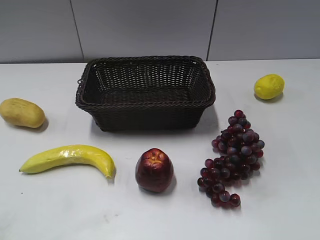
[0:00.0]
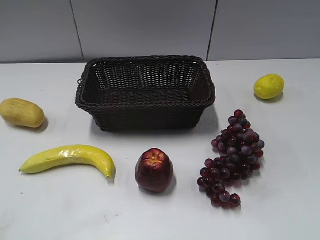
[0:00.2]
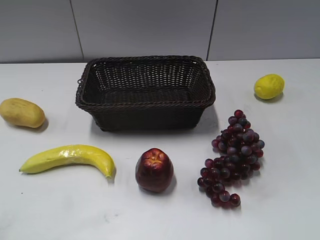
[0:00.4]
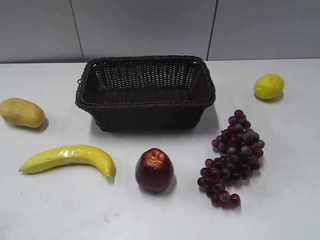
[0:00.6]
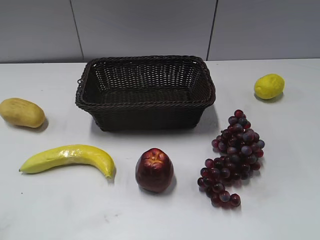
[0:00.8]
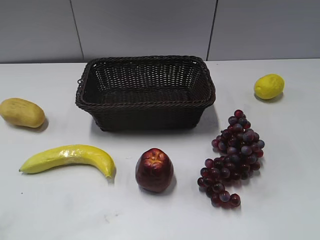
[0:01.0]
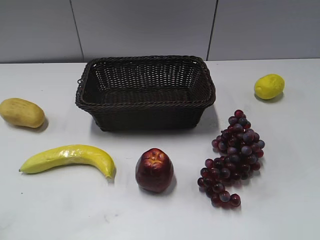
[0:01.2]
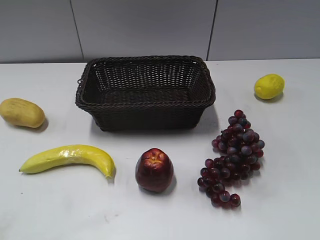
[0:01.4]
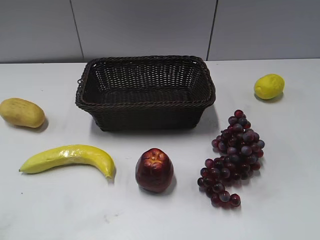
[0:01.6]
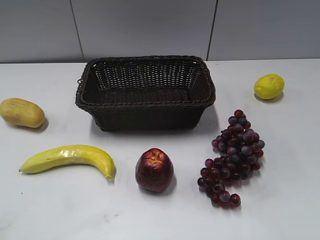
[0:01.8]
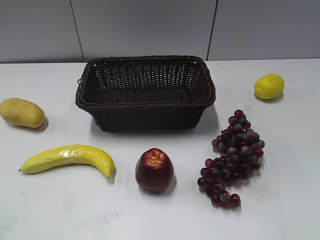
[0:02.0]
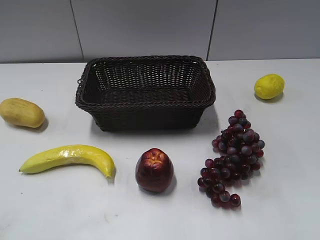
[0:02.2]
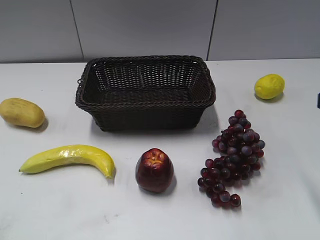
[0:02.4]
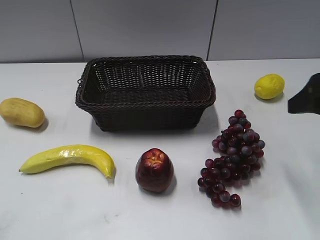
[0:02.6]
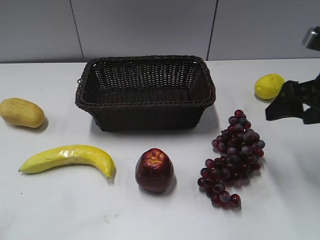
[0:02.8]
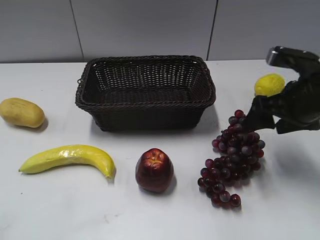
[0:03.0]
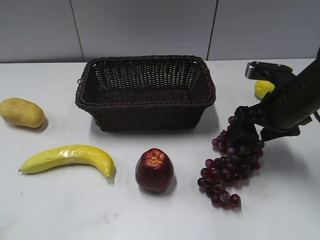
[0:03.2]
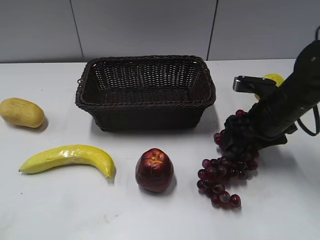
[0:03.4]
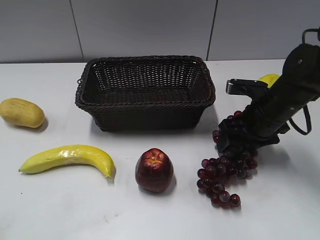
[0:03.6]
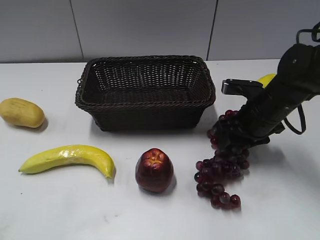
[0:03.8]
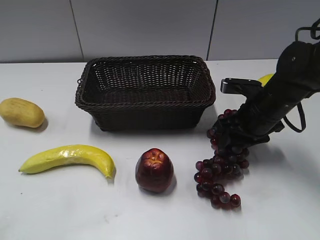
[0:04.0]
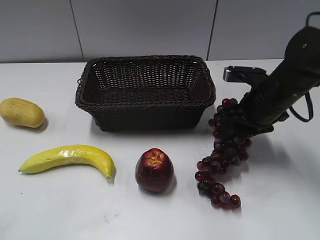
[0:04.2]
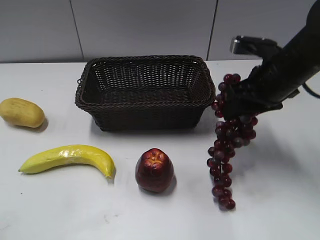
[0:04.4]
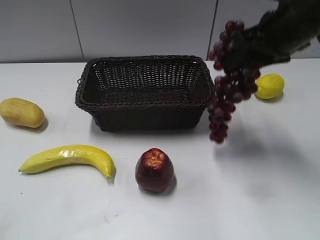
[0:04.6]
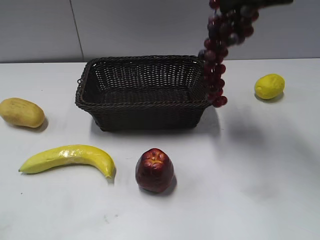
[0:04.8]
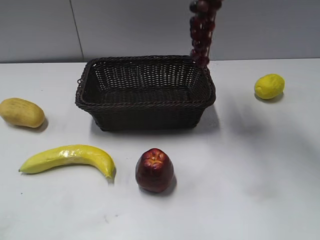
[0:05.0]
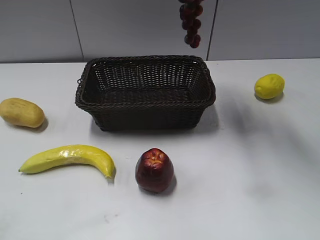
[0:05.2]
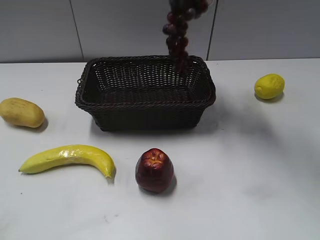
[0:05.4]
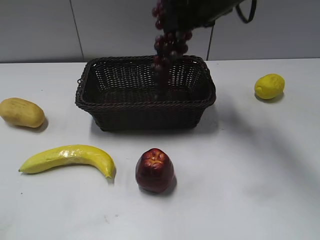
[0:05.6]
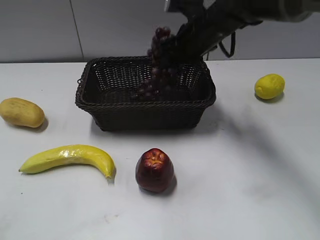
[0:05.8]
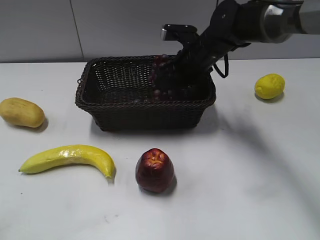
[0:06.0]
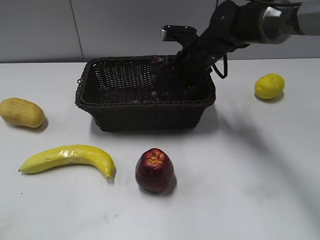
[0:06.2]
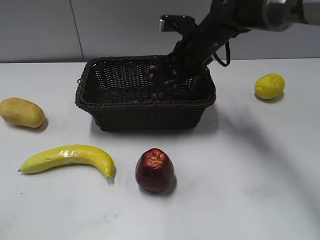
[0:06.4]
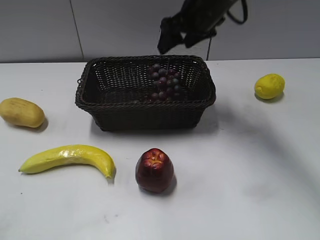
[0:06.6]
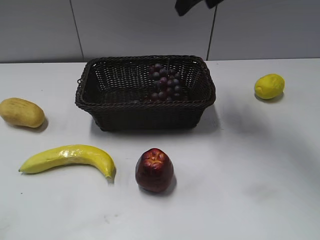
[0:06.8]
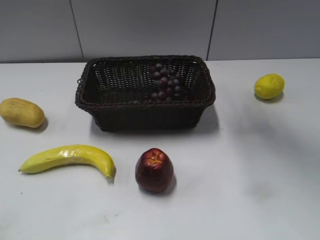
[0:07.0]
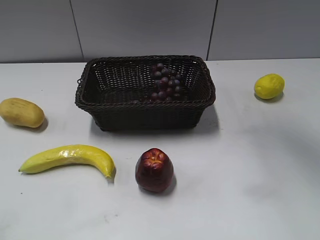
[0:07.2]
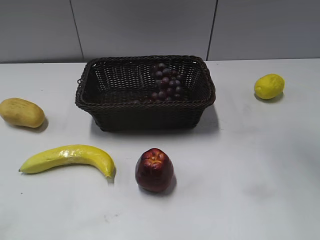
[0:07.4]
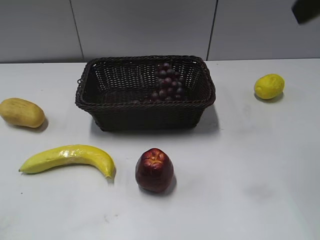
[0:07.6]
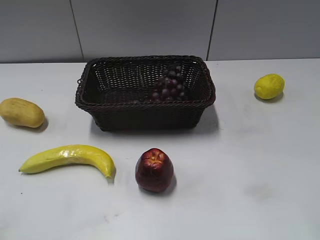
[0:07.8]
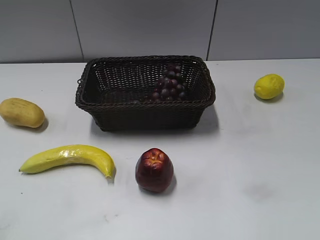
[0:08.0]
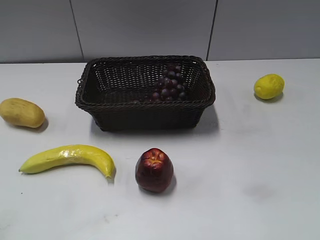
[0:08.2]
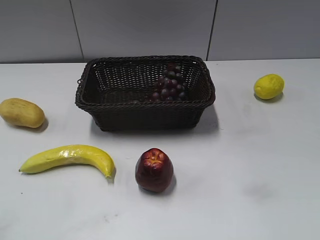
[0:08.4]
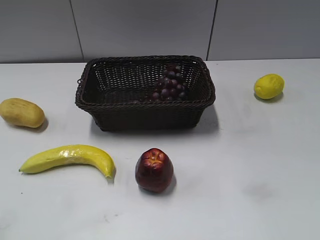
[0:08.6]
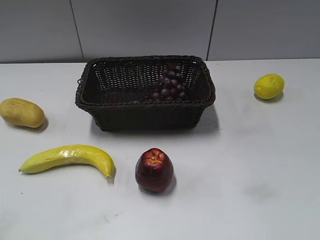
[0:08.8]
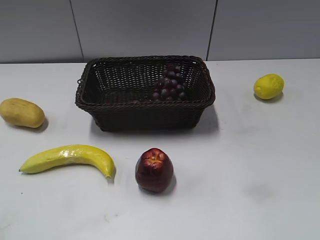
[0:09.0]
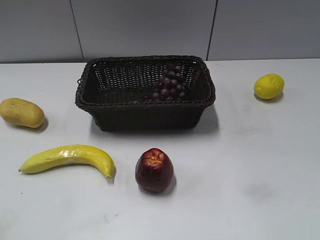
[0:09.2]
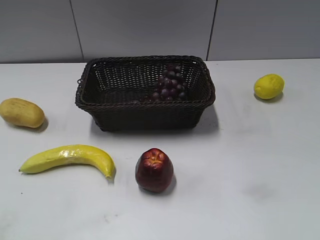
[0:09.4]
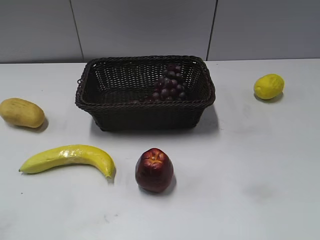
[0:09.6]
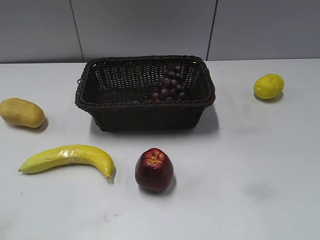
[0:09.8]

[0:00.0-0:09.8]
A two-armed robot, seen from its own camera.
Step, 0:02.4 to 0:03.8: Grasp the grape with right gripper.
Step, 0:04.2 to 0:06.2: Place the grape in the basket with right gripper.
0:01.4 to 0:02.8: The right gripper shifts some 25 cm forward.
0:02.8 to 0:04.2: The right gripper shifts some 10 cm downward, to the left and forward, and closes its fingers.
0:04.2 to 0:05.6: The right gripper is displaced upward, to the left and forward by some 20 cm.
0:05.6 to 0:07.0: The right gripper moves upward, roughly 15 cm, and opens.
0:07.0 to 0:08.4: The right gripper shifts approximately 35 cm backward and to the right.
